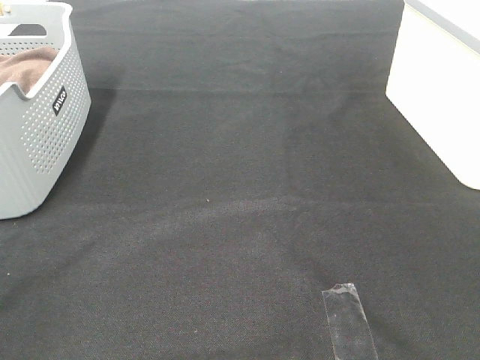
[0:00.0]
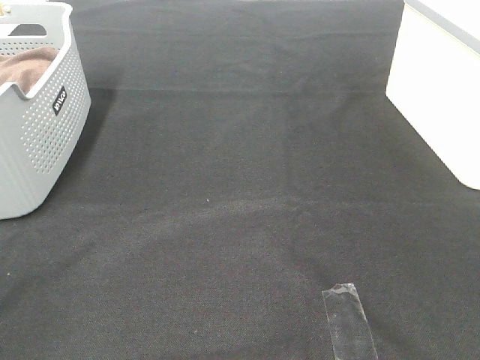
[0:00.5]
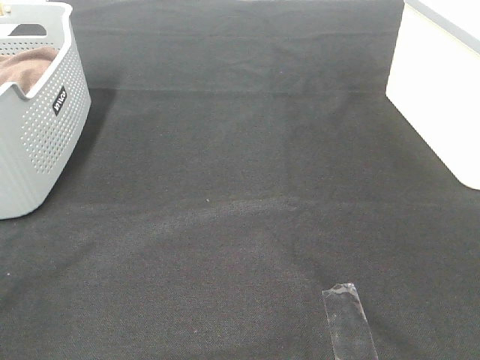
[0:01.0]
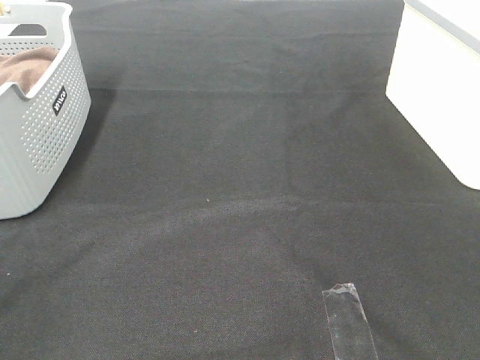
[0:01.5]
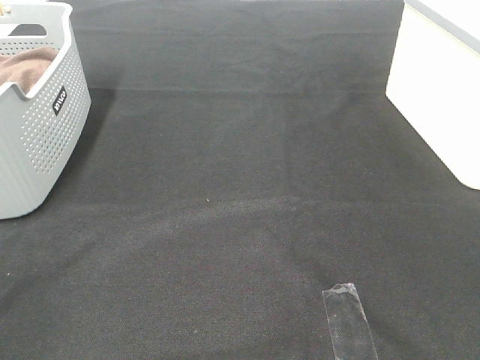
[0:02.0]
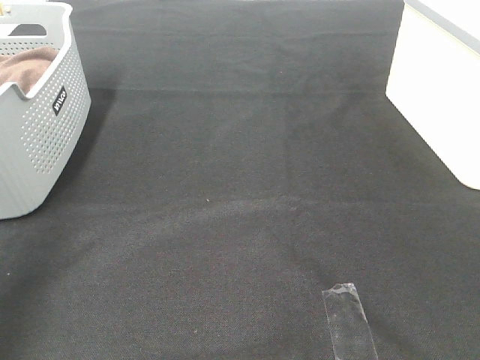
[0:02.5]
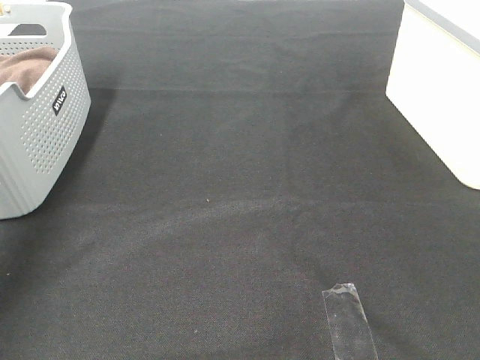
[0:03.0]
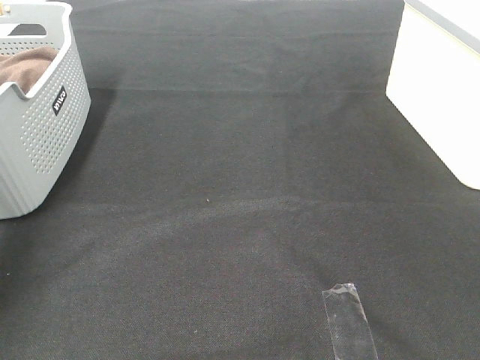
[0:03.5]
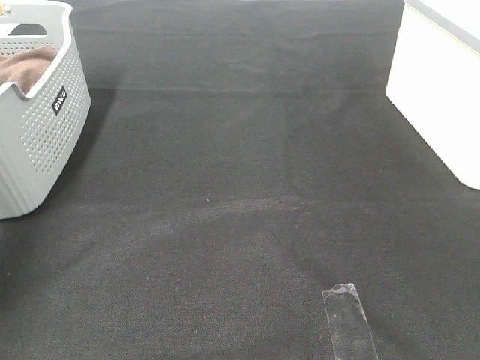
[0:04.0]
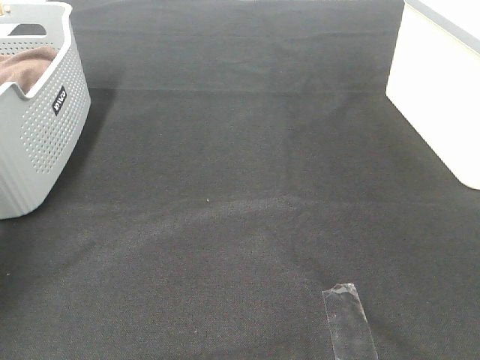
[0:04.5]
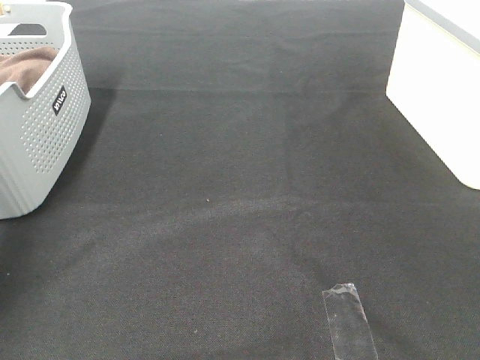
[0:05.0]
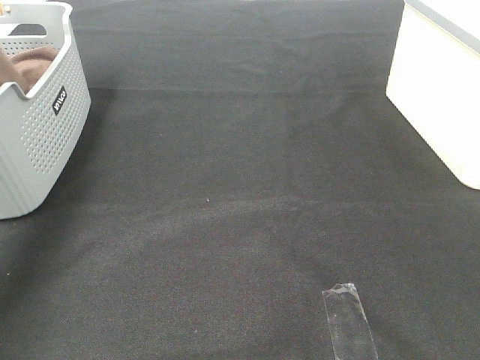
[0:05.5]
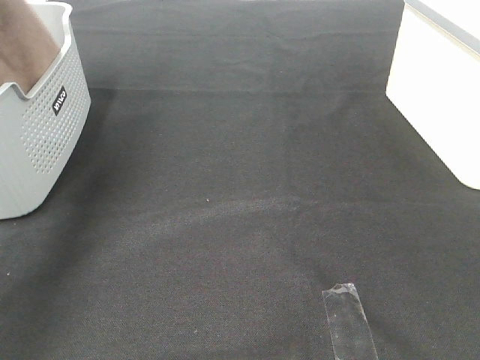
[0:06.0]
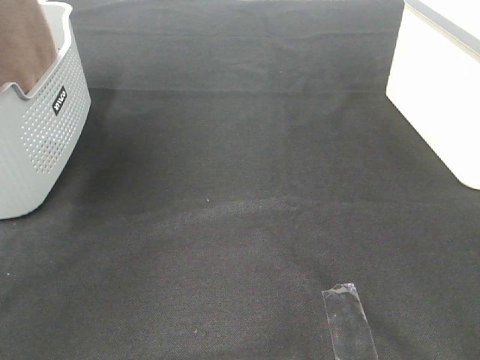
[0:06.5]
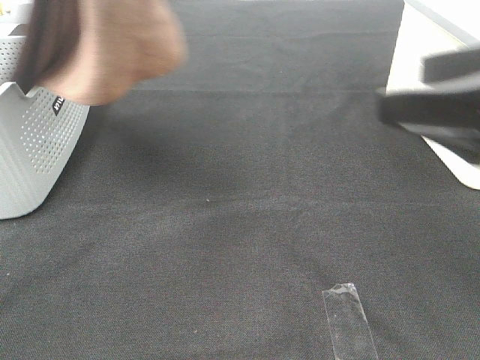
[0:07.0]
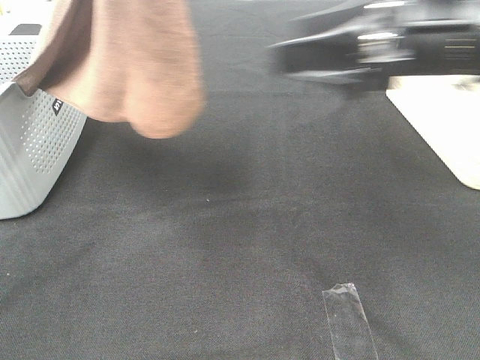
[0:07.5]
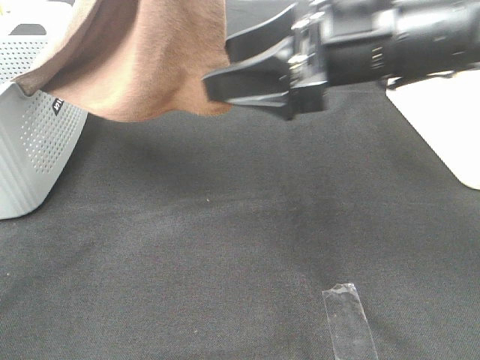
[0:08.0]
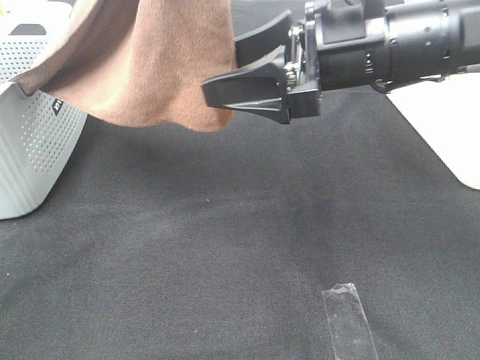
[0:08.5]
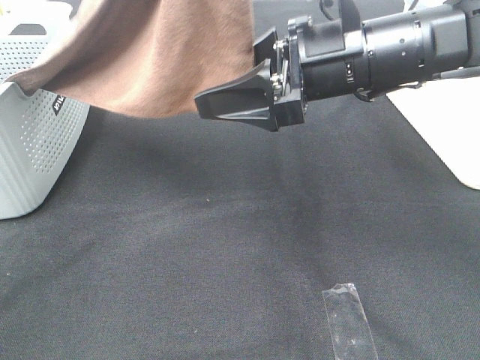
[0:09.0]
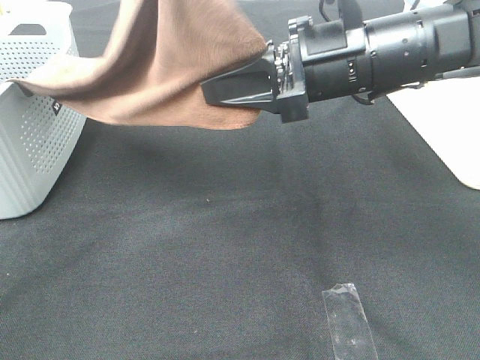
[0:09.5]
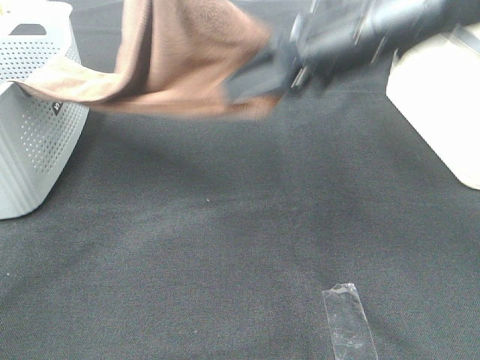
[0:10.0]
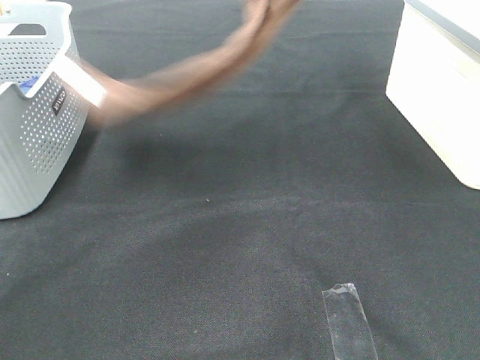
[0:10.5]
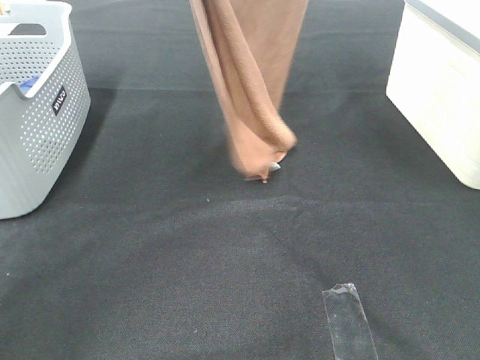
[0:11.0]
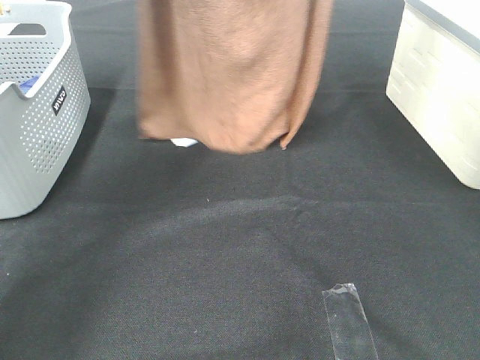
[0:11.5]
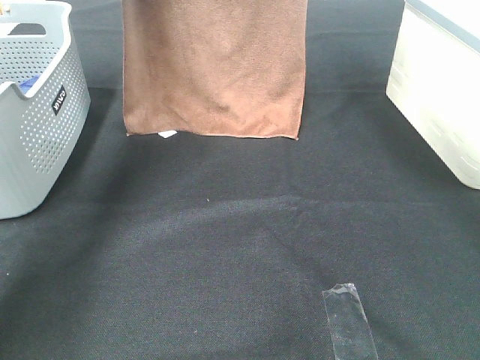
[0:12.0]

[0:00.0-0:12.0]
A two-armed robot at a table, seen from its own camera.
Task of the whole recording: Remove the towel and place it.
Step, 0:06.0 to 0:10.0: Right hand: grab a corner of the brown towel and straighten it.
0:00.0 to 0:02.0: Both grippers stay put.
0:02.0 to 0:04.0: The left gripper travels forward by some 50 cm.
0:04.0 to 0:06.0: The left gripper travels upward, to the right and backward by some 30 cm, and closes its fingers.
0:06.0 to 0:08.0: The right gripper moves forward and to the left, approximately 35 cm. The left gripper heads to the right and backward, covering about 25 cm.
0:08.0 to 0:10.0: The right gripper closes its fingers.
0:10.0 to 0:12.0: The left gripper is displaced forward and to the left by about 25 cm; the right gripper is displaced upward and forward by some 25 cm.

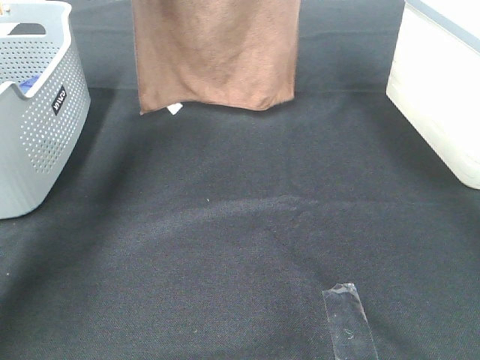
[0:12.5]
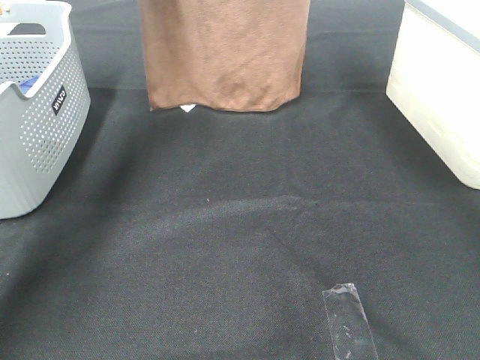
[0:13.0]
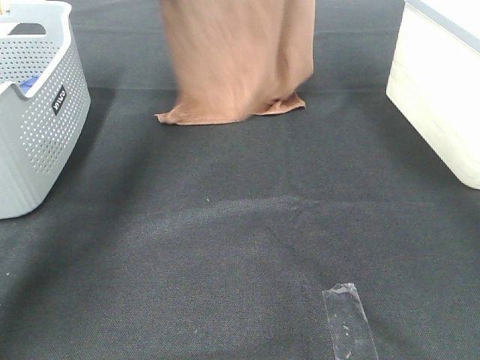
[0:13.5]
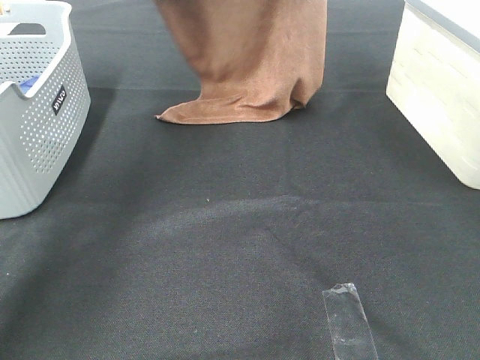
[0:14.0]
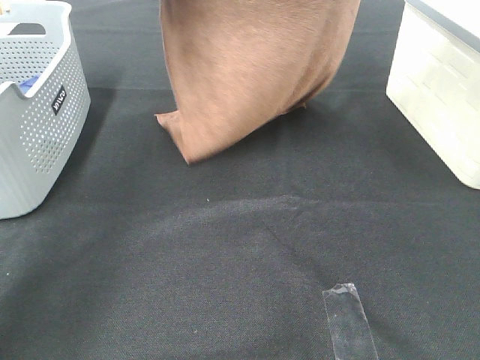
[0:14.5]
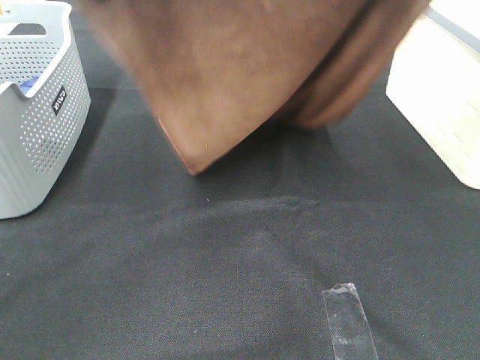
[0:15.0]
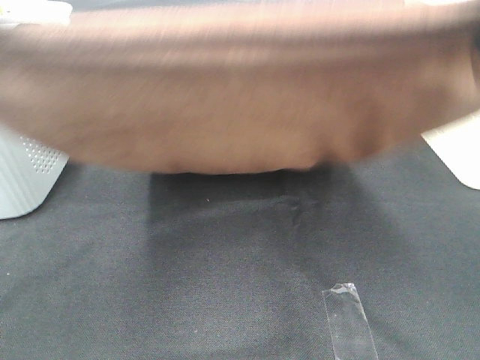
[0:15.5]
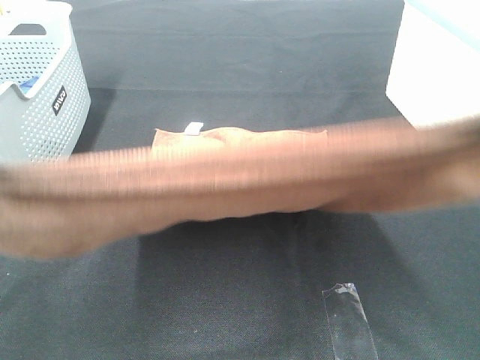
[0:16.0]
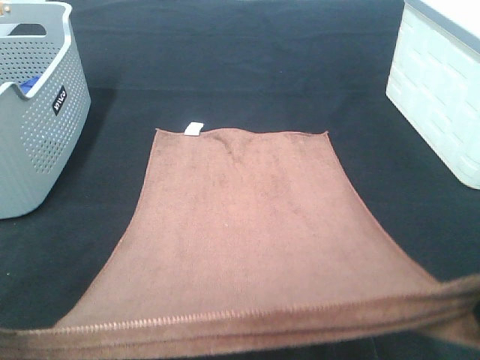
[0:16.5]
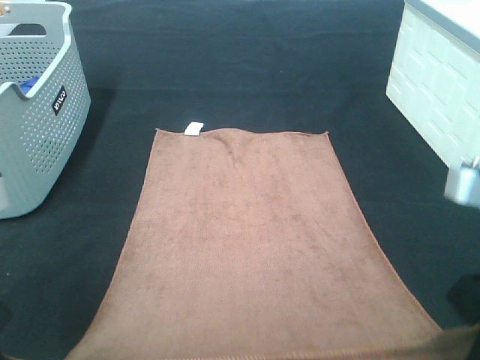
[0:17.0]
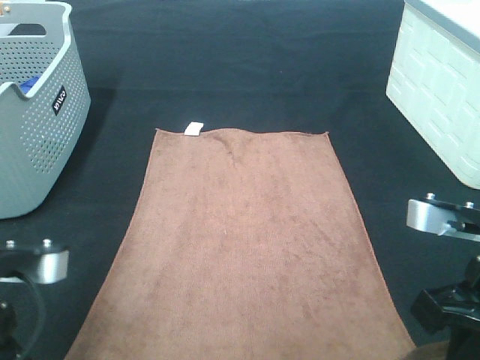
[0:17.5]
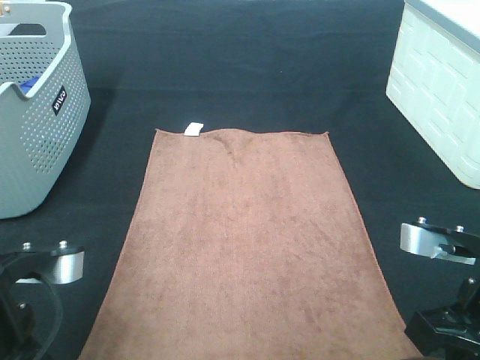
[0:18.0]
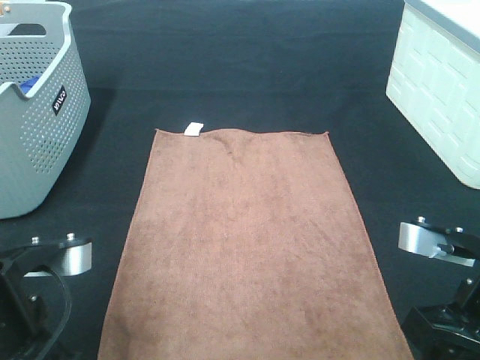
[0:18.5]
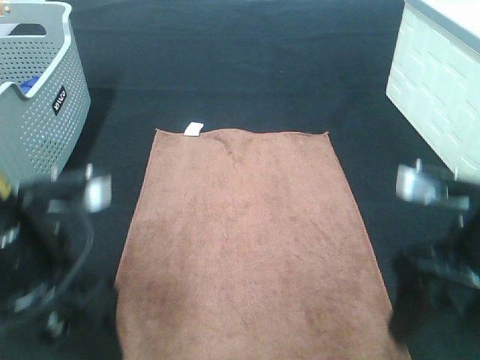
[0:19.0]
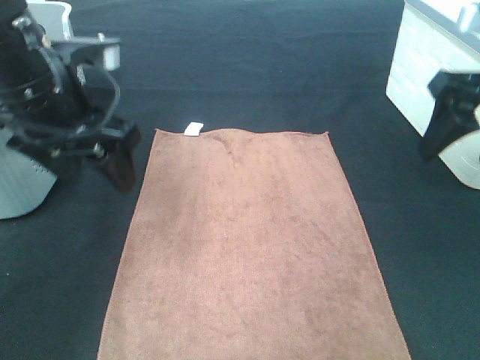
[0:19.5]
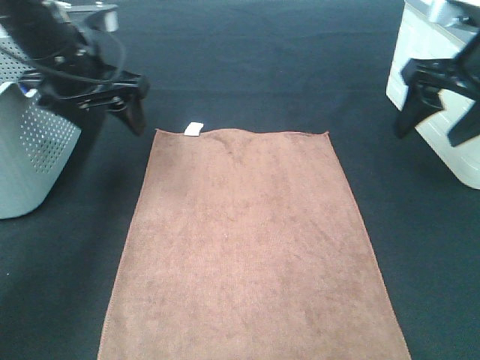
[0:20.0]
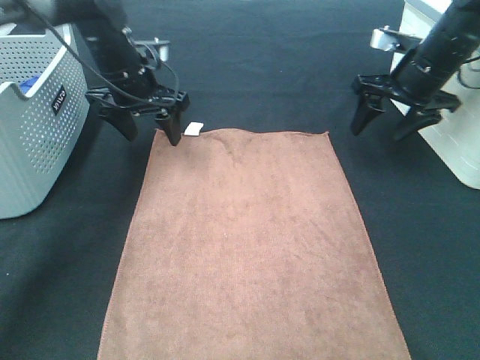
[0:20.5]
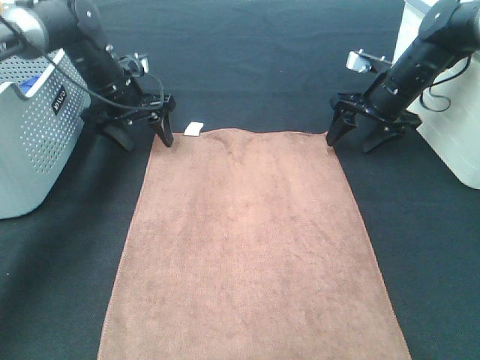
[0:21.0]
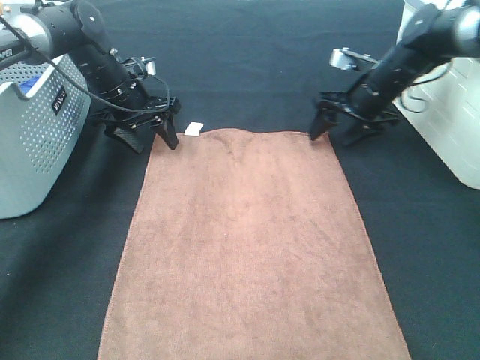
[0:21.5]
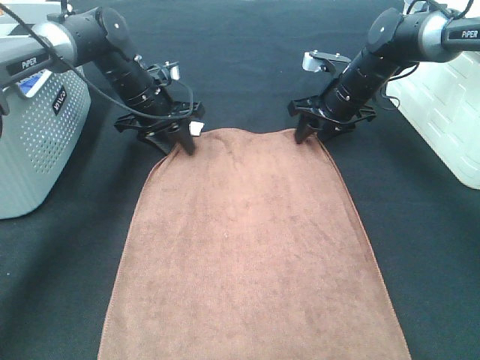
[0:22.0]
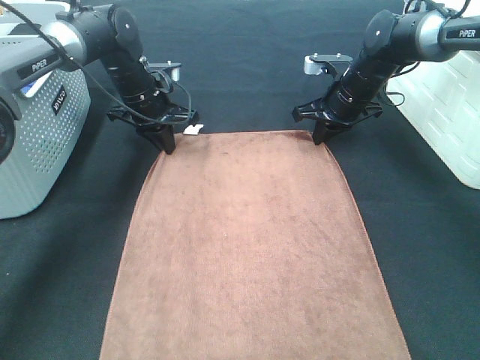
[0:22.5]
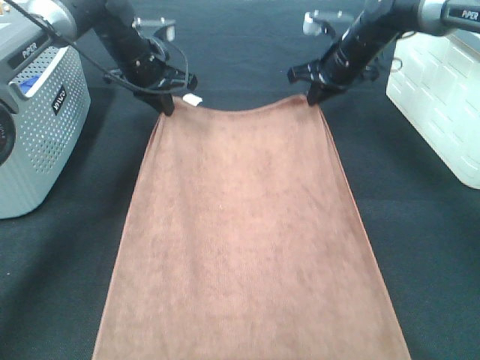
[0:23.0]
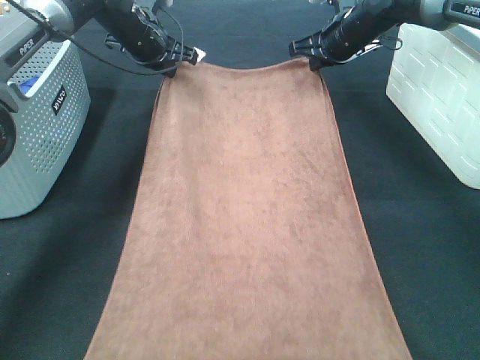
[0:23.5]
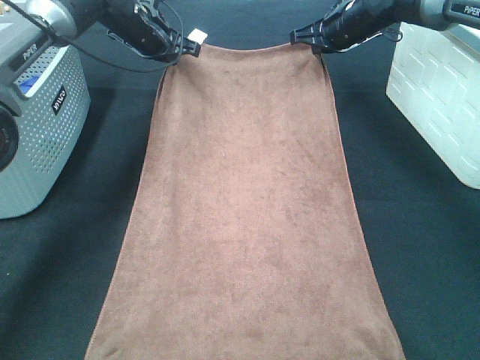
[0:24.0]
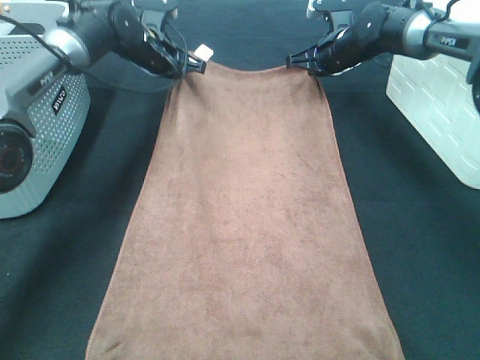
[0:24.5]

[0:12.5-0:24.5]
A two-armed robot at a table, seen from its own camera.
Task of the whole recording: Remove the towel and place it.
Step, 0:12.5 to 0:15.0: Left hand: spread the brown towel flat on the table.
Step, 0:12.5 to 0:15.0: Right hand: spread the brown towel flat on the table.
Step, 0:15.5 to 0:20.0: Left hand:adjust the brown towel.
Step, 0:15.5 to 0:20.0: Right hand:adjust the brown towel.
0:12.5 to 0:14.5: The two grippers go roughly 10 cm backward.
0:14.5 to 0:16.5: The grippers both shift backward and downward by some 35 cm.
0:16.5 to 0:18.5: The left gripper moves downward and to the right, some 10 cm, and opens. The right gripper heads downward, covering some 10 cm, and opens.
0:18.5 to 0:20.5: The two grippers go some 35 cm forward.
0:20.5 to 0:22.5: The right gripper is displaced to the left, downward and forward by about 10 cm, and closes its fingers. Meanwhile the left gripper moves about 5 cm, and closes.
0:22.5 to 0:24.5: Both grippers travel together forward, approximately 5 cm.

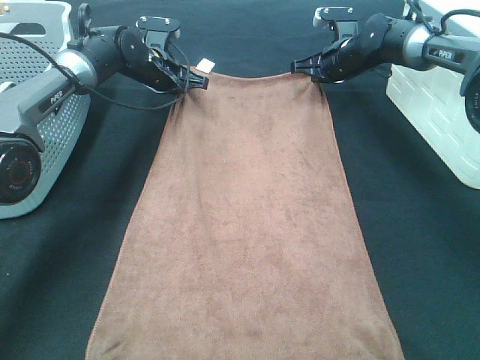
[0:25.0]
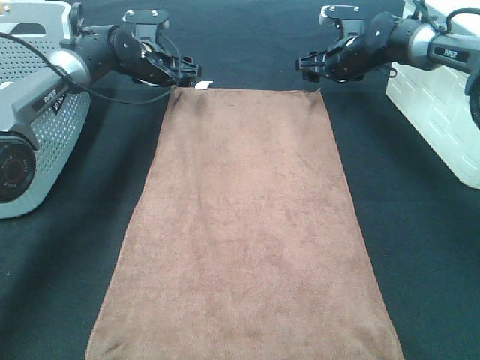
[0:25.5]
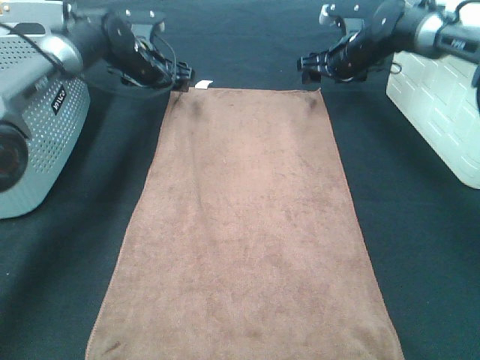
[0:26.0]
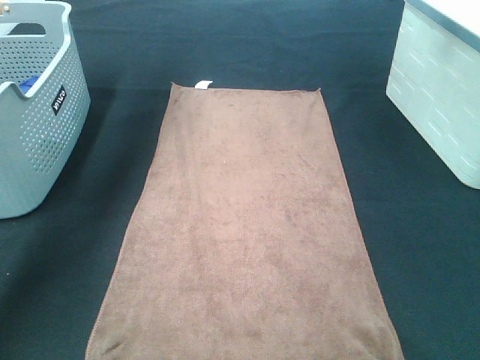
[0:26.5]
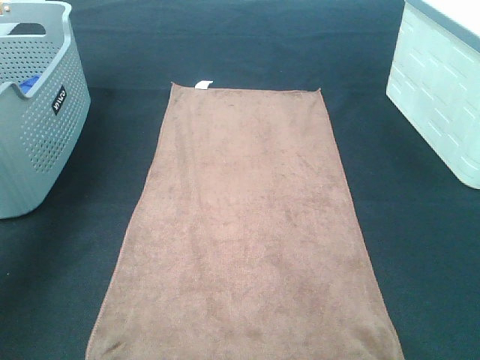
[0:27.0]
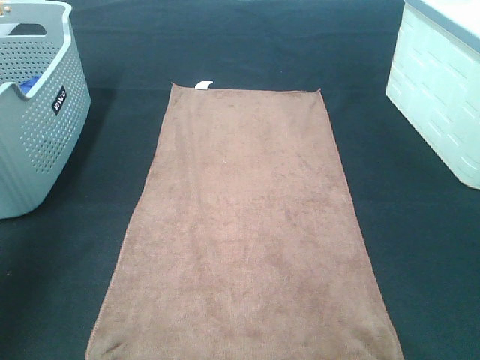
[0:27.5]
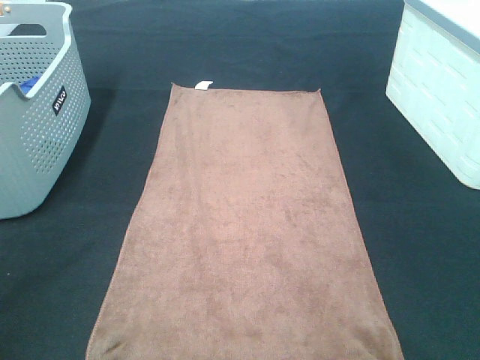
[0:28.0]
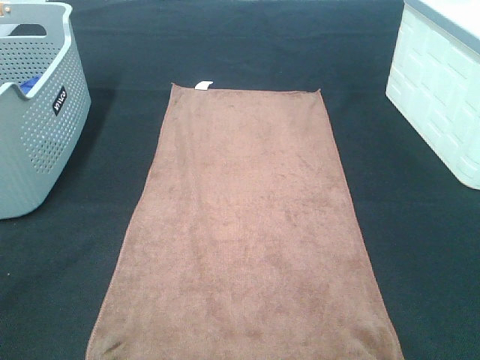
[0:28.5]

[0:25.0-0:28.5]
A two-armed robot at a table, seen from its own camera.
Task of the whole recording: Remove the towel and place it.
0:25.0 to 0:27.0: The right gripper goes about 40 cm upward and backward, and opens its fingers. The left gripper goes roughly 40 cm upward, backward and to the left, and opens up.
0:27.0 to 0:28.5: The right gripper goes some 40 cm backward and downward. The left gripper shifts approximately 40 cm backward.
